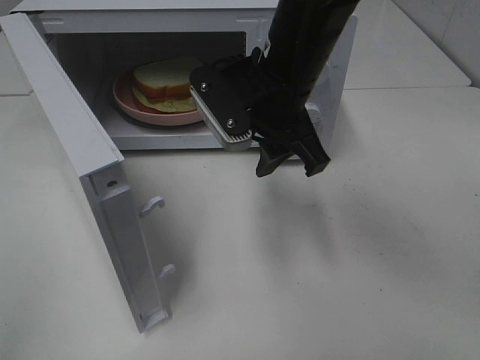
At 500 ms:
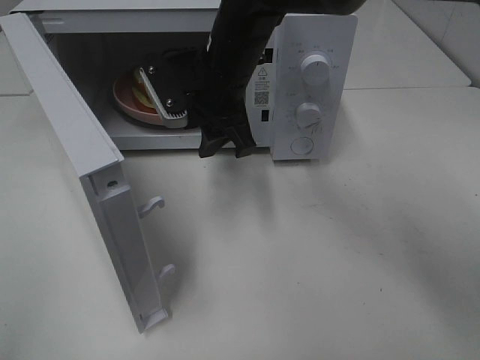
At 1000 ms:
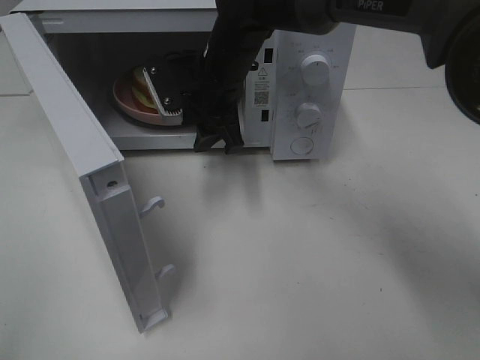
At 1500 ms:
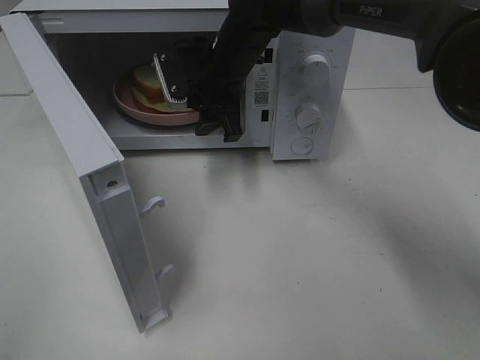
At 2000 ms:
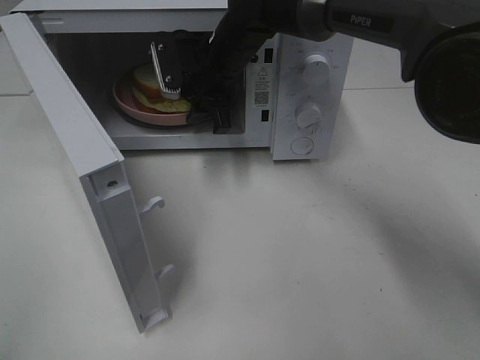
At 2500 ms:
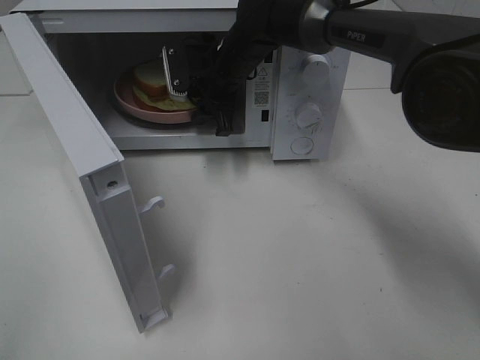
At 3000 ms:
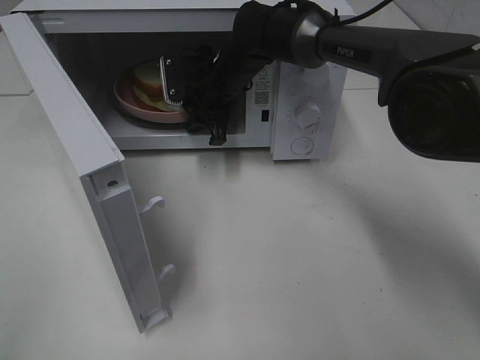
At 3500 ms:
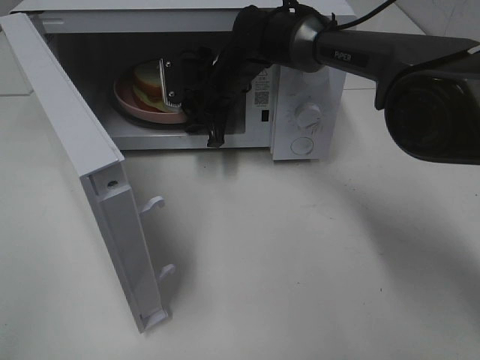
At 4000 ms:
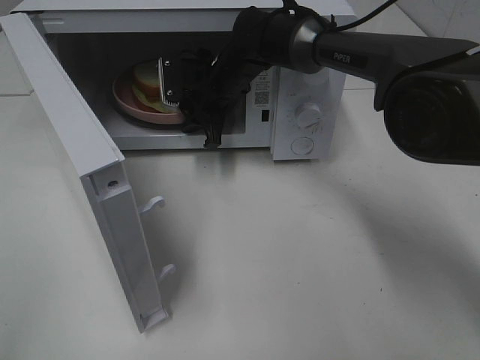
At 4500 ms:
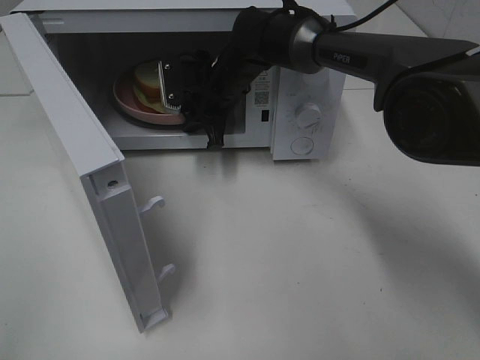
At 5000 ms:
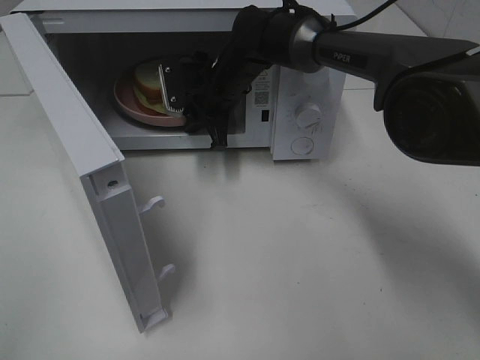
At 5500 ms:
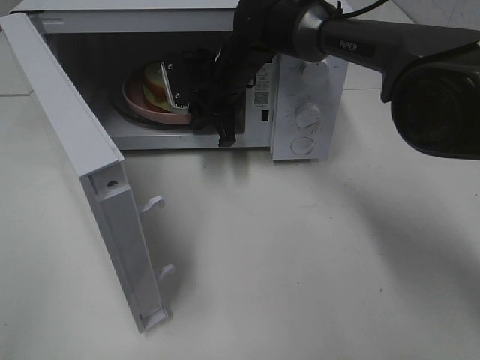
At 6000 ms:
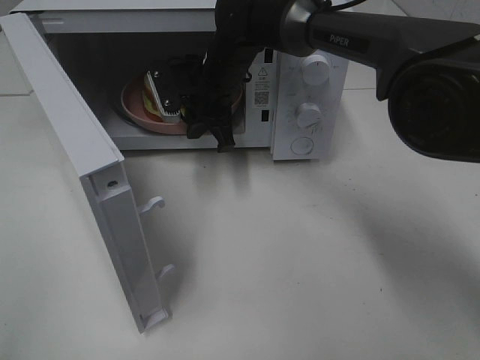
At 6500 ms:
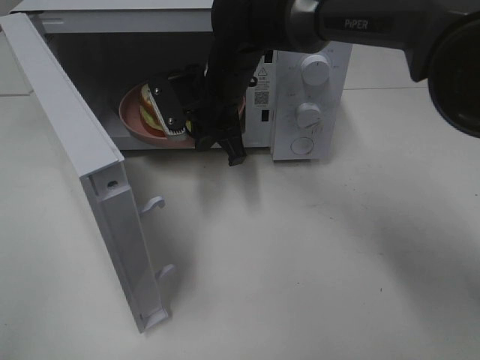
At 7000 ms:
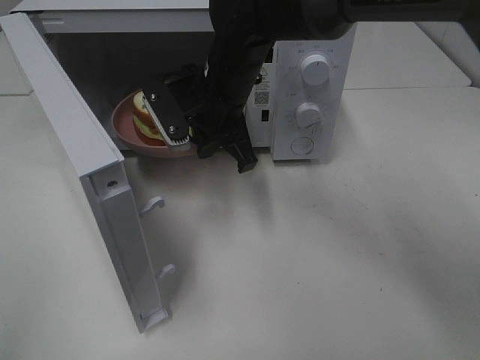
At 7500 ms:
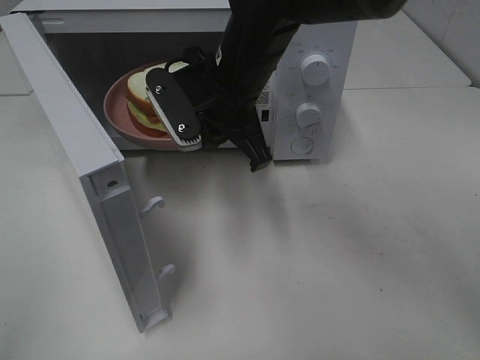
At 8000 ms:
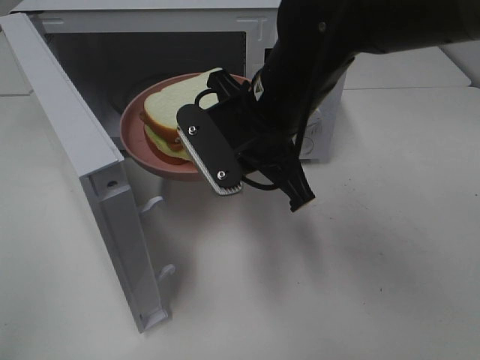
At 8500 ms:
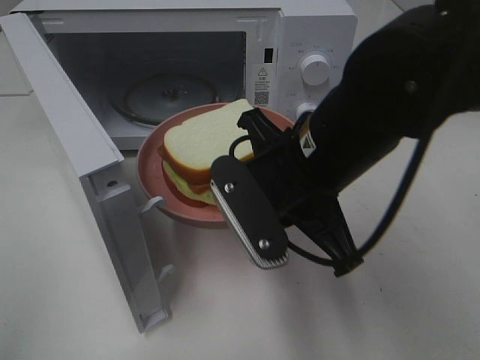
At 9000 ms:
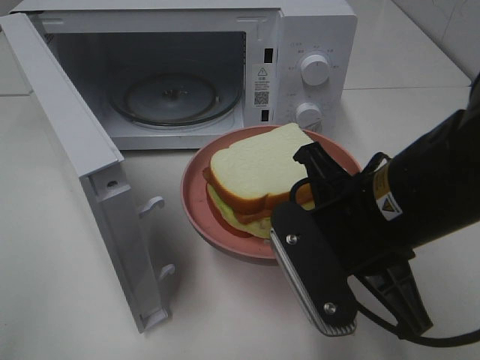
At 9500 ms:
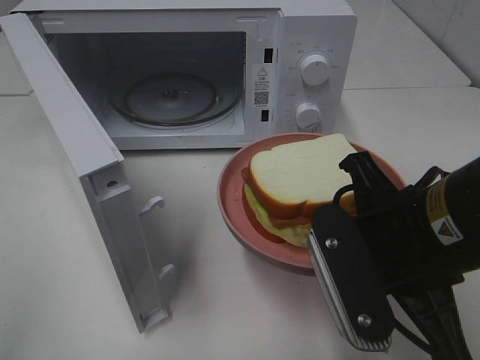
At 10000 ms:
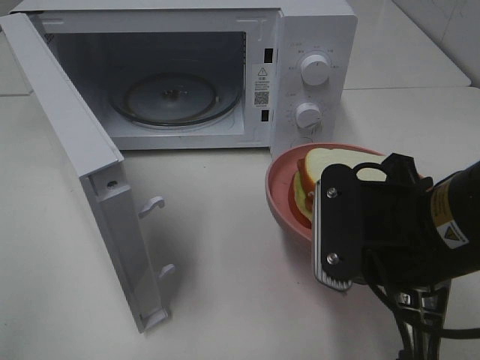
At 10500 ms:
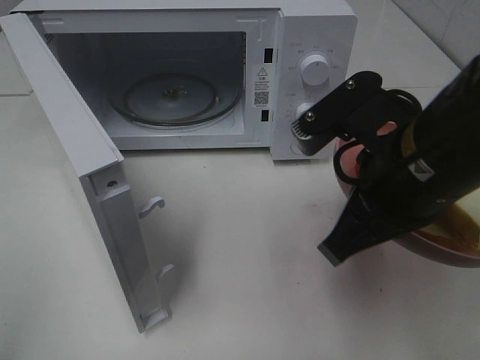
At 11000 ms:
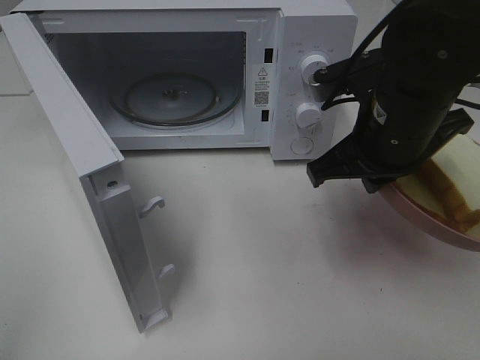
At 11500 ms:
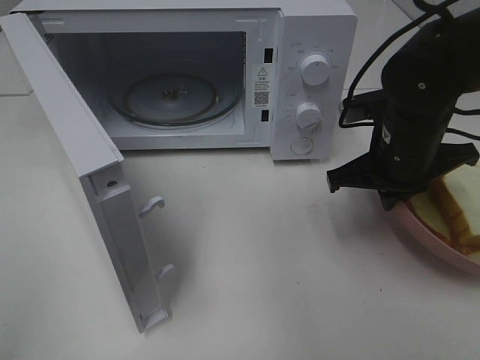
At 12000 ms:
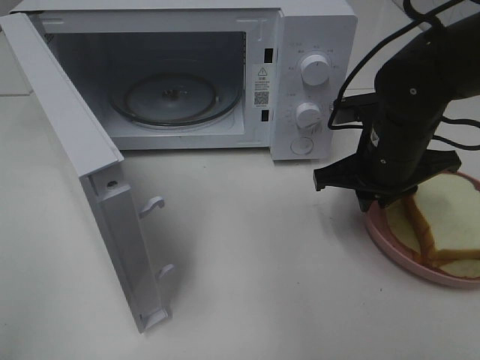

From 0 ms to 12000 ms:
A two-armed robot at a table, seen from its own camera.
Task of the whole recording: Heat Sandwich.
Step, from 0 ms to 5500 ms: Right hand: grab the plate with the sandwich.
From 0 ms to 2000 ms: The right gripper moves forward, approximately 15 cm.
From 2000 ms to 4000 ms: The right gripper is displaced downward by about 5 cm.
From 4000 ms to 6000 ms: The right gripper closes up.
From 6000 ms to 8000 ms: The right gripper travels backward by about 15 cm.
From 8000 ms to 10000 ms: The right gripper heads backward and to the right, covering roughly 15 cm.
From 10000 ms to 12000 ms: The right gripper shifts about 15 cm forward.

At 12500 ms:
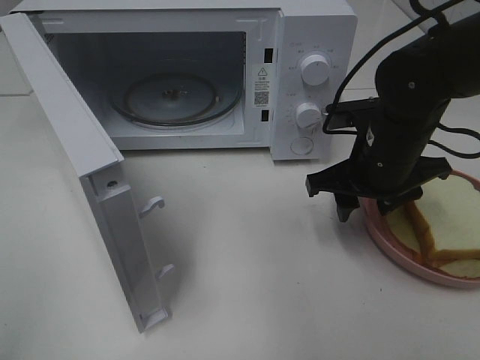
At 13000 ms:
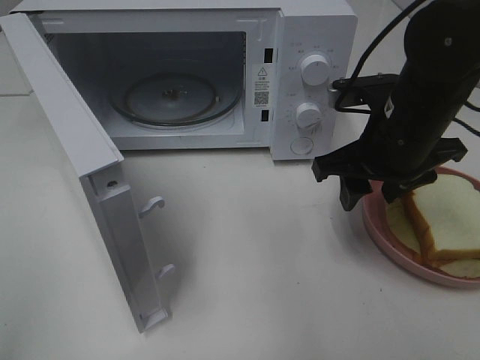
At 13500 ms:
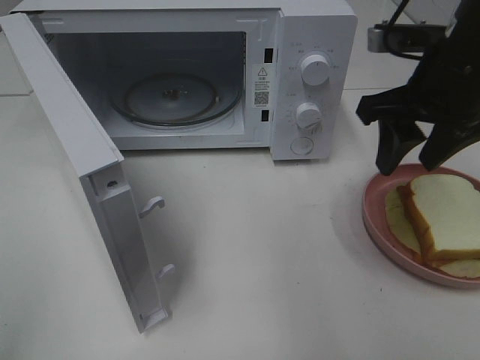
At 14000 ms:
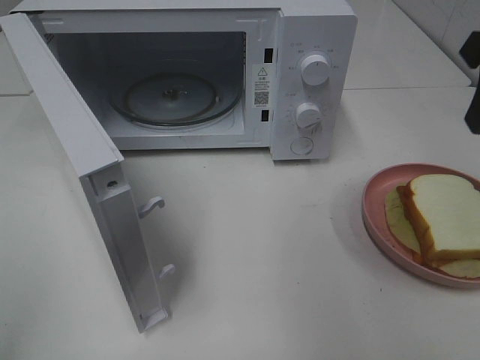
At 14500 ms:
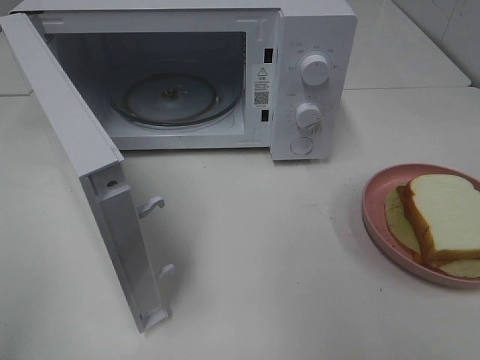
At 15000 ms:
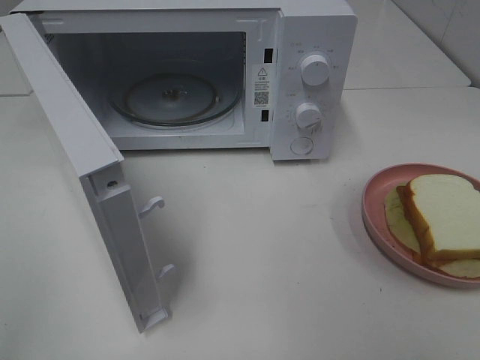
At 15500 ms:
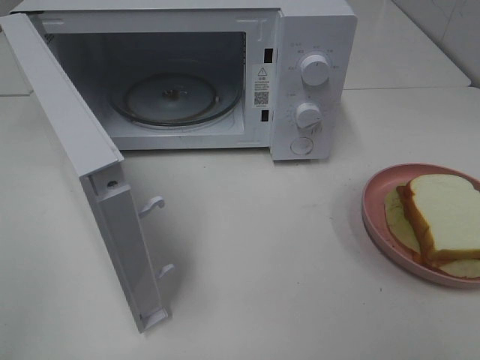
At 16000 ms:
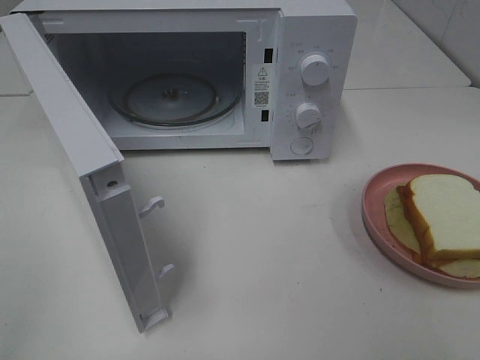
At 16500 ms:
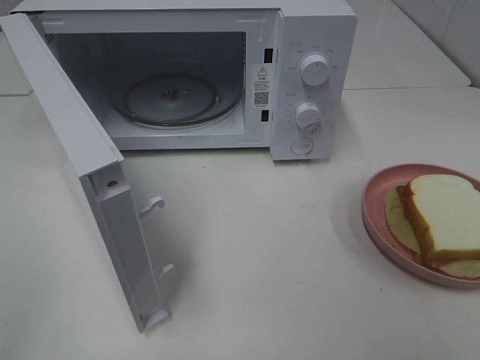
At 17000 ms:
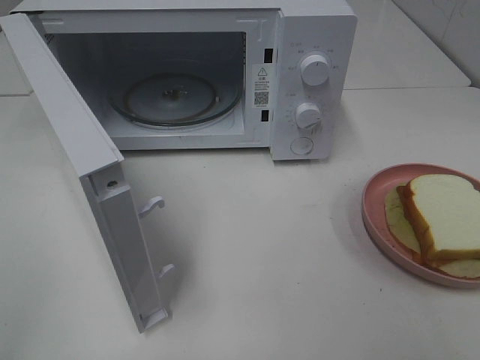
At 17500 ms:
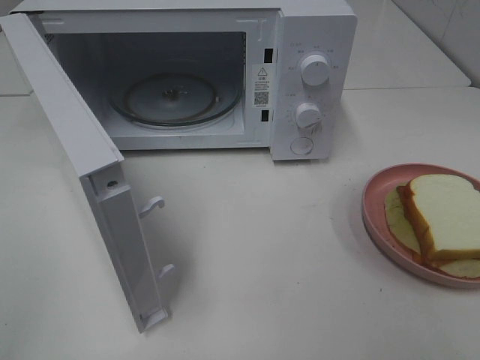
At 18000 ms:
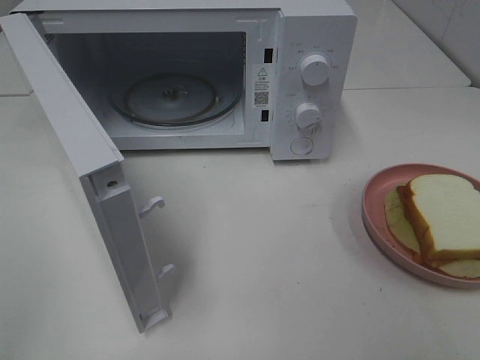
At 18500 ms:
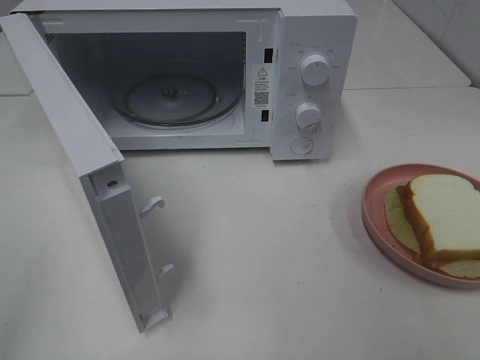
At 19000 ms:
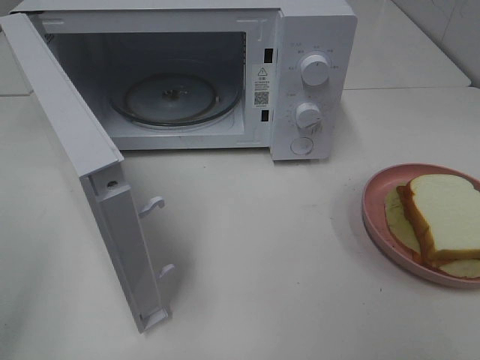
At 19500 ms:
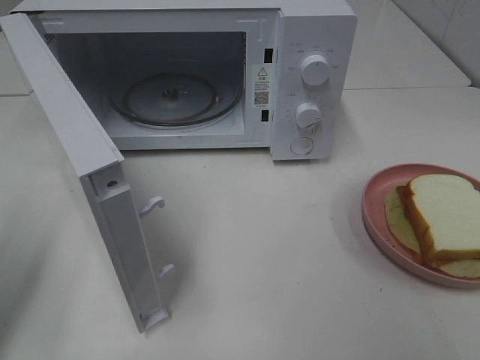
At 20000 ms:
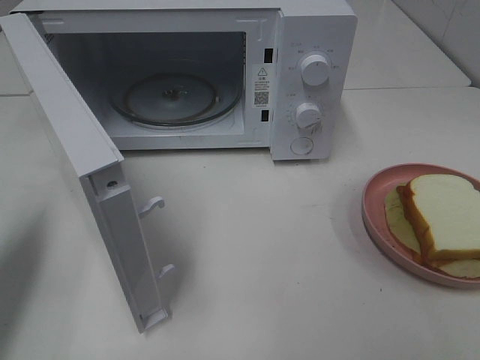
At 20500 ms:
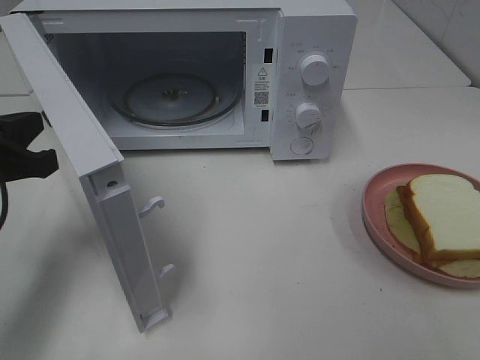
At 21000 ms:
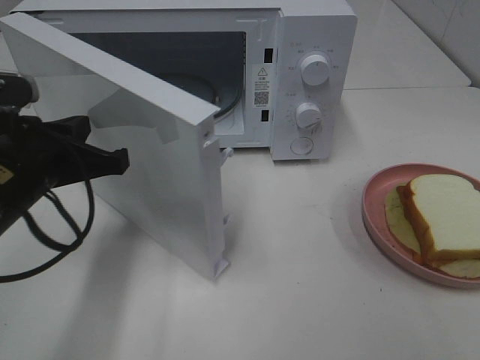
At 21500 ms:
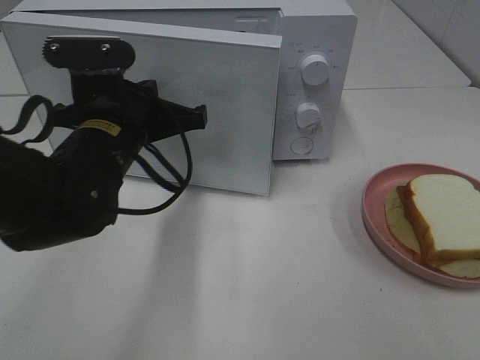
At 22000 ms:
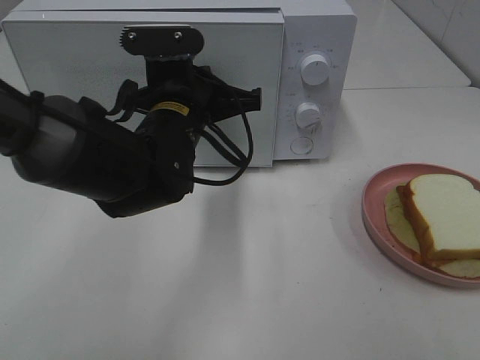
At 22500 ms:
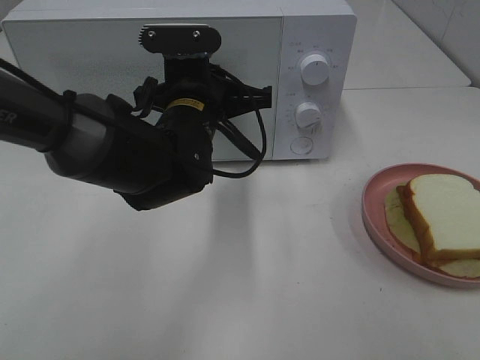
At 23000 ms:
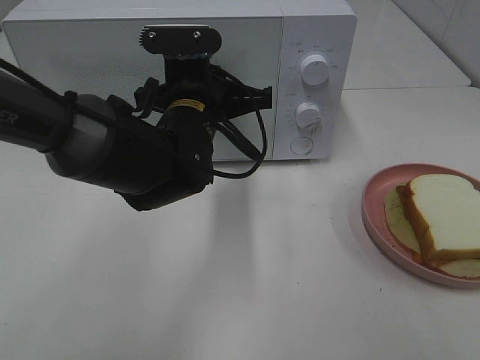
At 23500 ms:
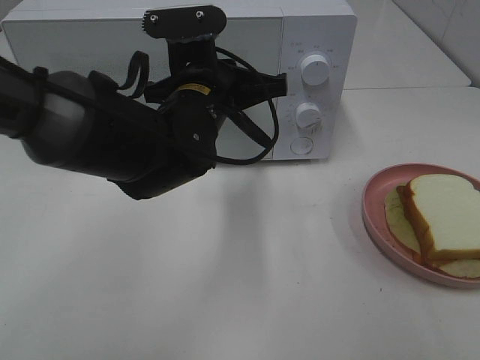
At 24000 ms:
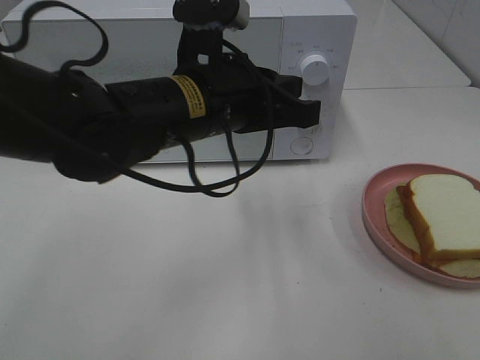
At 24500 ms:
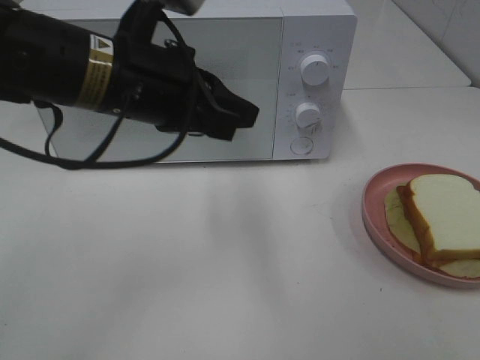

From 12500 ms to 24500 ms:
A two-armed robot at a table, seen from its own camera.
Task of the whole recording: Heat Sandwich.
Step, from 14000 ms to 23500 ms: Left hand: close the microwave door.
From 12500 ms to 14500 ms: The right gripper travels upward, backward and to the right by about 30 cm.
From 18500 ms to 20500 ms: The left gripper goes roughly 25 cm forward and downward, and closes.
From 20500 ms to 22500 ms: The left gripper moves to the right and forward, approximately 25 cm.
From 22500 ms to 24500 ms: The left gripper is displaced upward and backward by roughly 10 cm.

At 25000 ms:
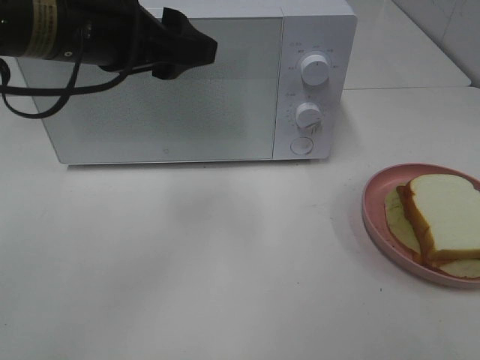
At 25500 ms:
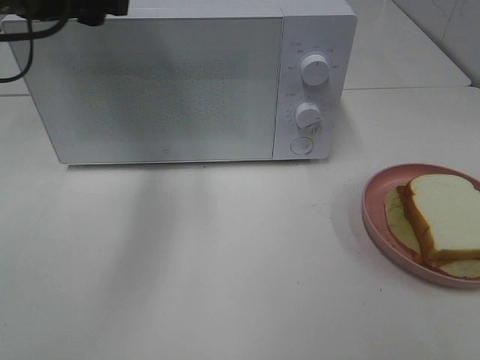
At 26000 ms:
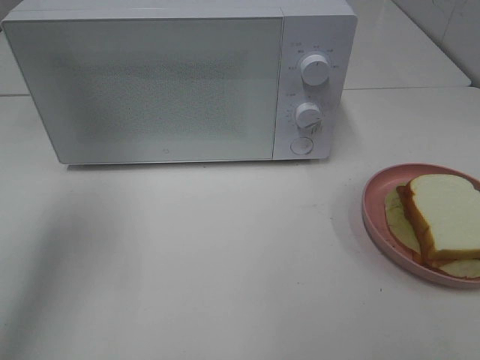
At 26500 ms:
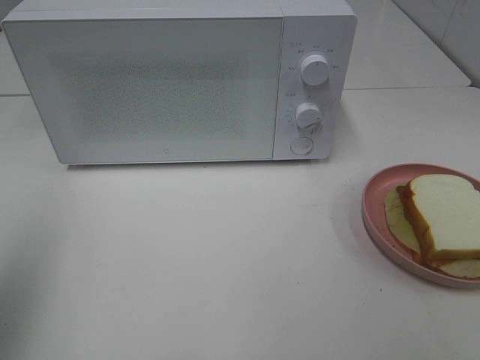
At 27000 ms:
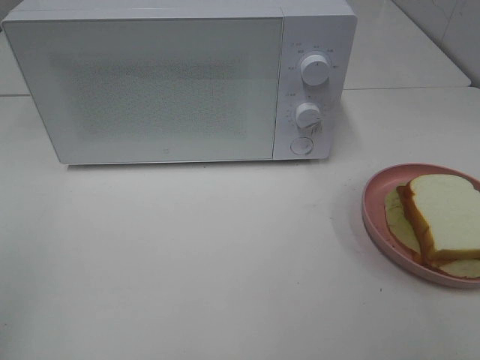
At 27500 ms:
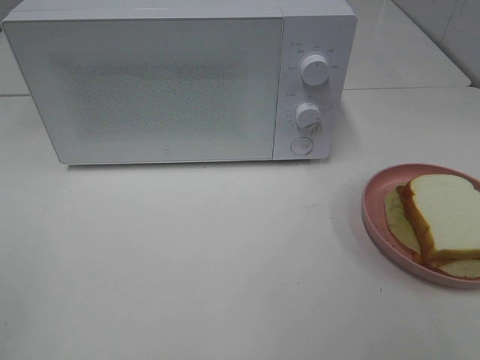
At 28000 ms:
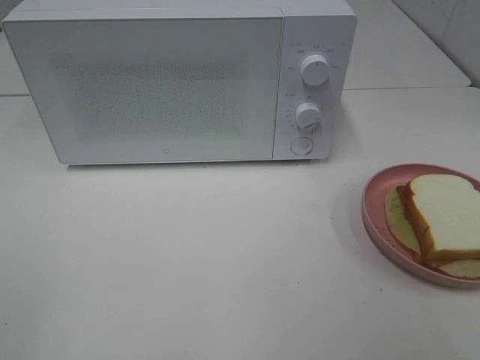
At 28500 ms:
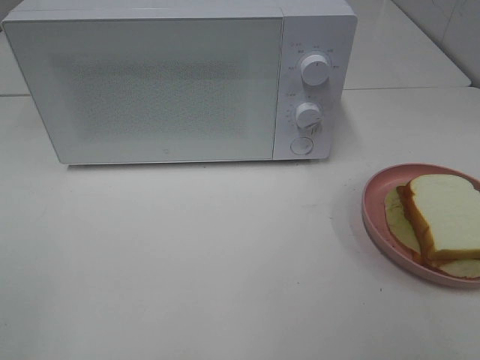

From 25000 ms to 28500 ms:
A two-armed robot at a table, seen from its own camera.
Task of the whole recording: Heat Sandwich.
From 25000 ms to 27000 ms: The left gripper travels backward and to the left by approximately 30 cm.
